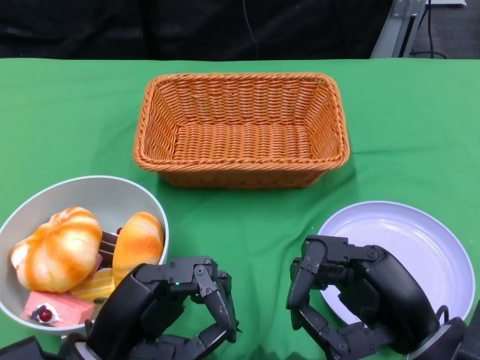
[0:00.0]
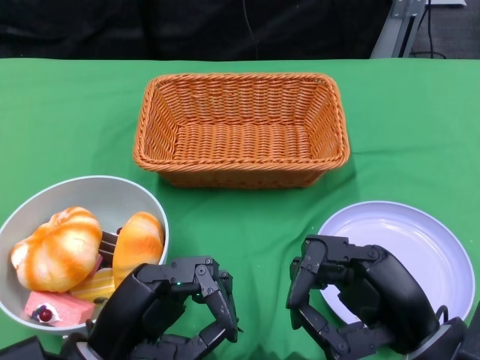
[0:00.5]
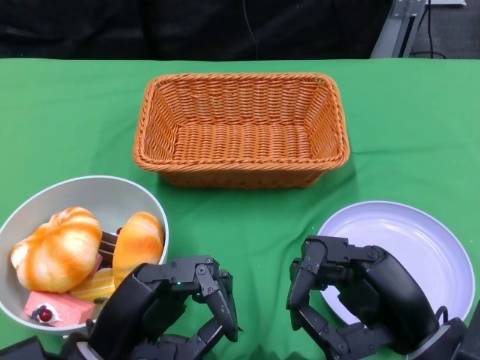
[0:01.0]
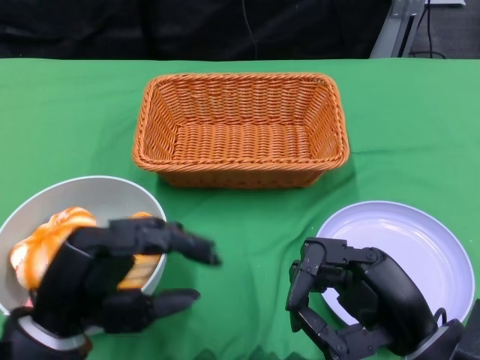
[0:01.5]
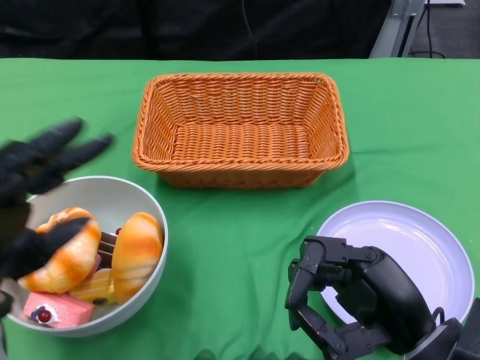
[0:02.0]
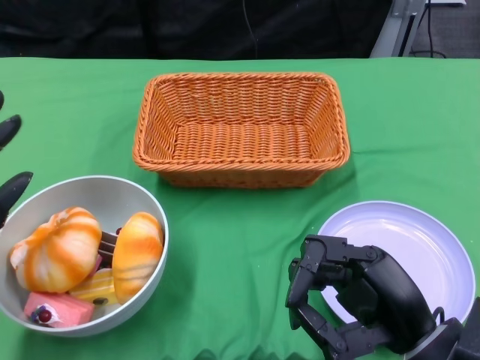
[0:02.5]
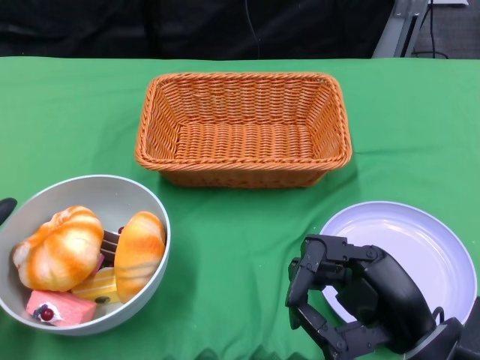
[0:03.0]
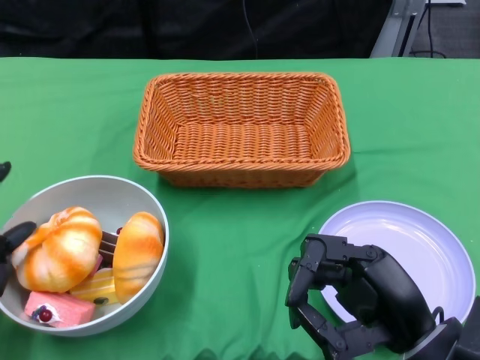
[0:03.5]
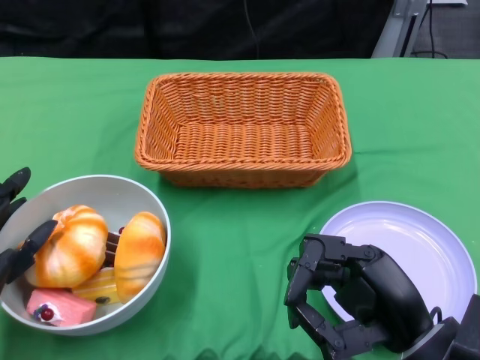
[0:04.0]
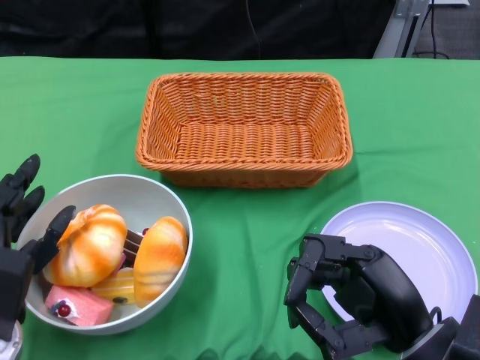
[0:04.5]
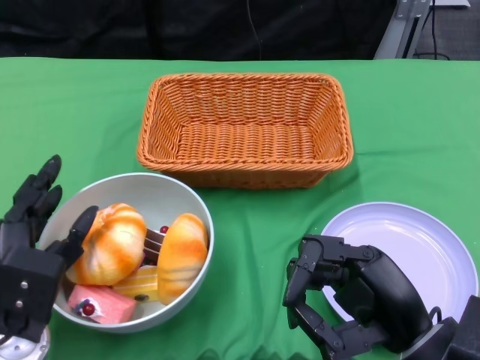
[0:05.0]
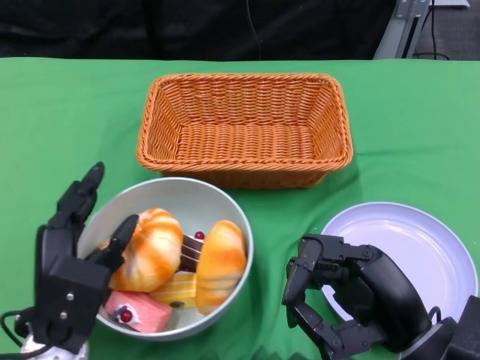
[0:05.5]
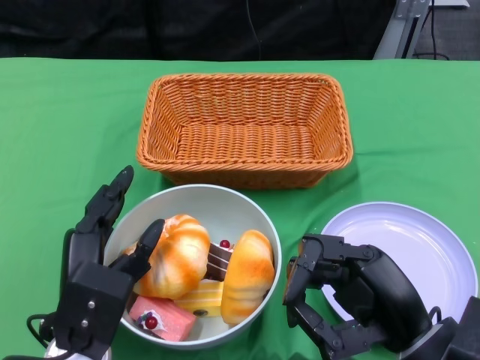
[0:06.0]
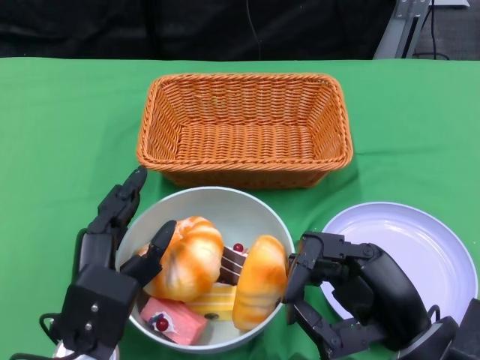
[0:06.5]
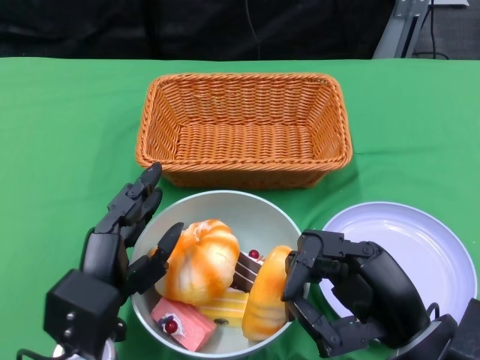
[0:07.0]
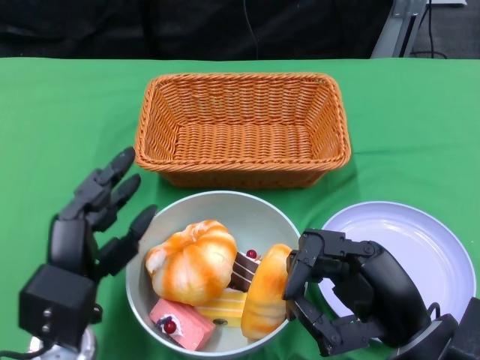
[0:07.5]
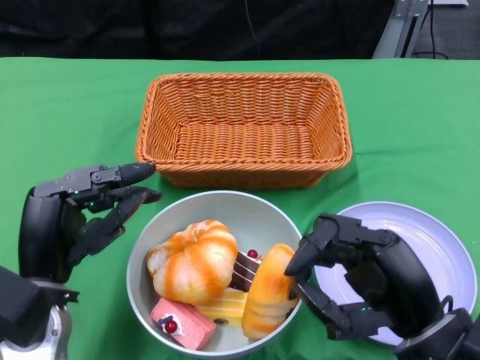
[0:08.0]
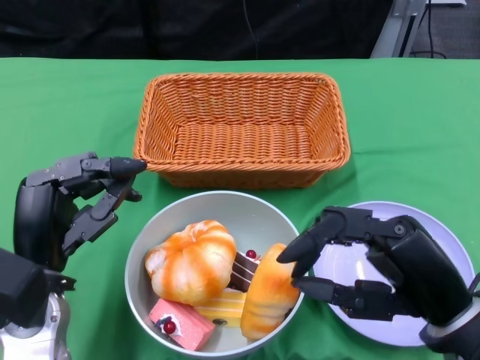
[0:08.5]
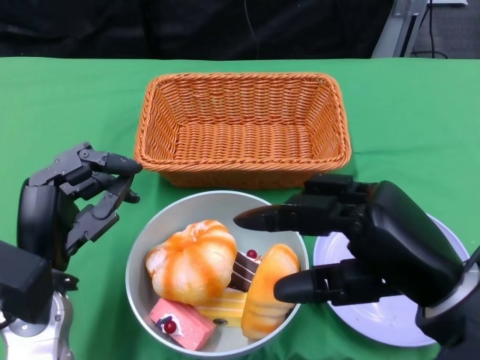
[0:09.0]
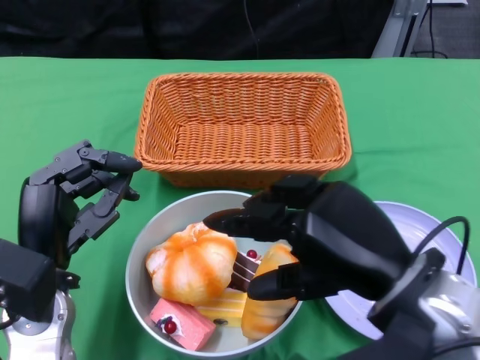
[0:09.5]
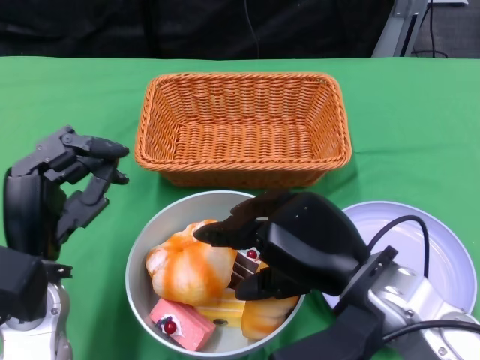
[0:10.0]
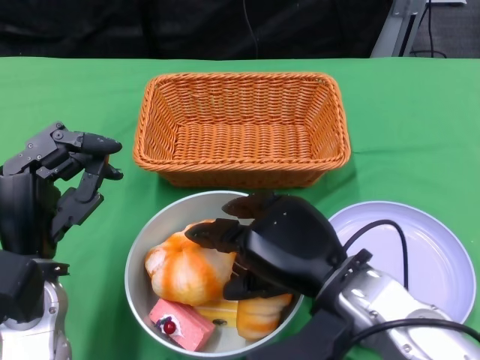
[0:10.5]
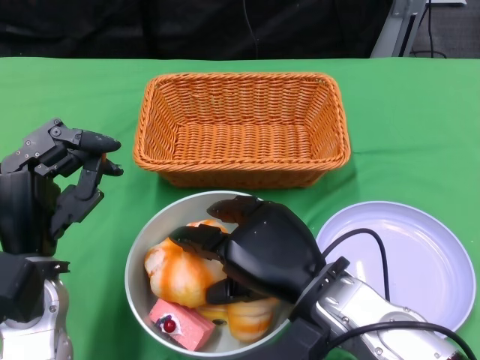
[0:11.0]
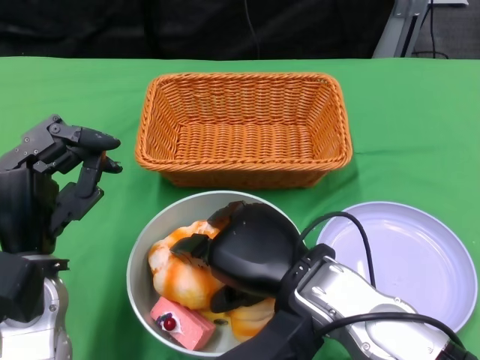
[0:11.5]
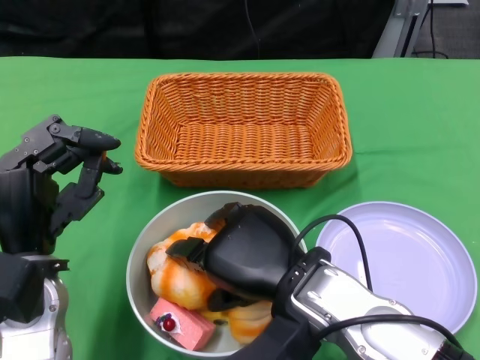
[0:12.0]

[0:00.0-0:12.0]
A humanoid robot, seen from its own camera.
Step, 0:00.0 to 0:07.0: Push the bowl to the center of the table using the left gripper.
0:02.0 to 0:04.0: The left hand shifts approximately 10 cm downward.
0:04.0 to 0:06.0: The left hand shifts approximately 10 cm to the right.
0:08.0 to 0:10.0: The right hand heads to the left, covering some 5 cm.
0:10.0 to 0:12.0: The right hand heads to the left, covering some 5 cm.

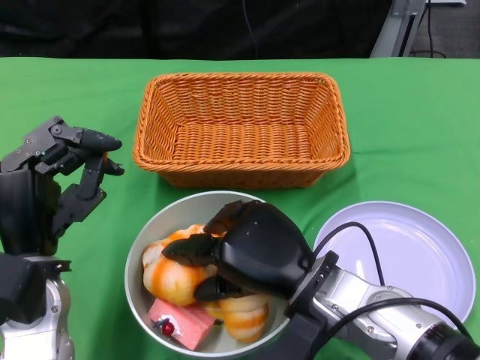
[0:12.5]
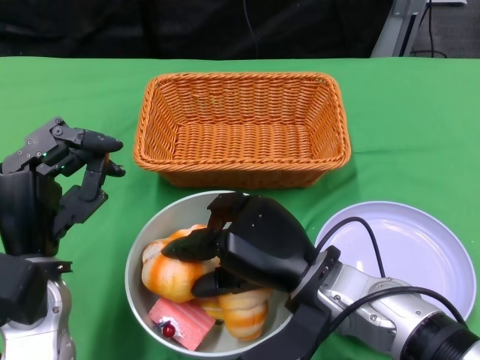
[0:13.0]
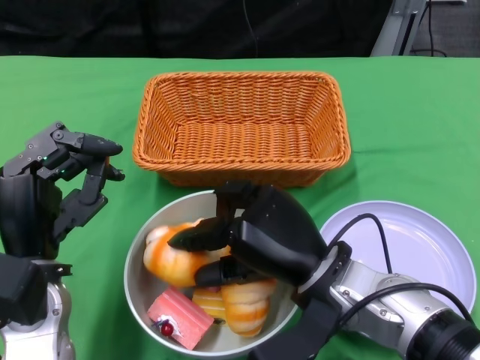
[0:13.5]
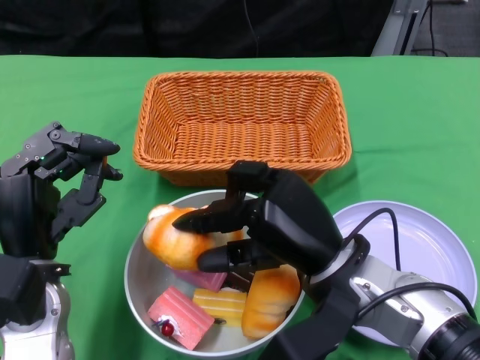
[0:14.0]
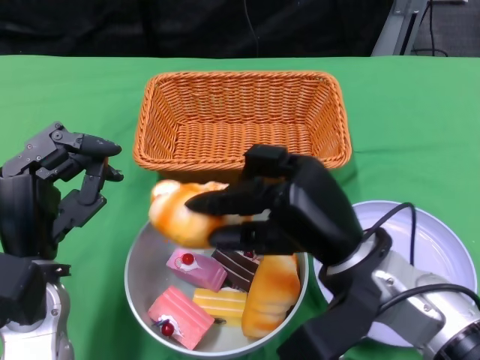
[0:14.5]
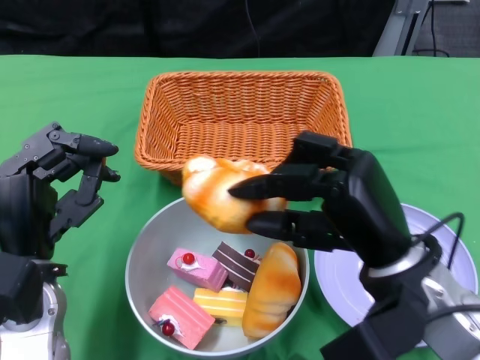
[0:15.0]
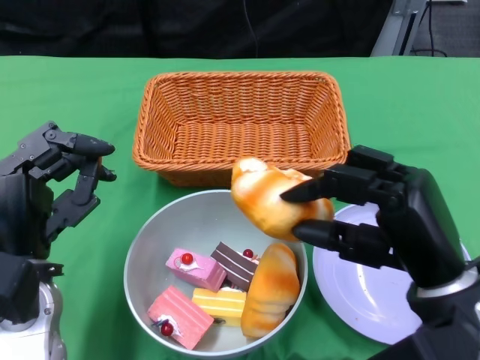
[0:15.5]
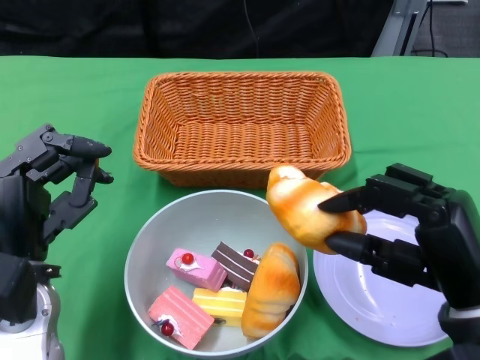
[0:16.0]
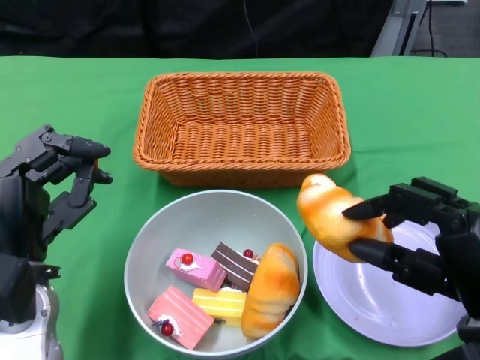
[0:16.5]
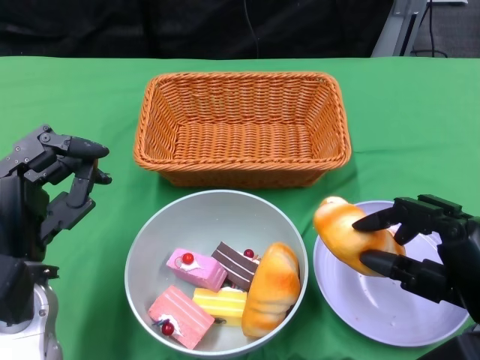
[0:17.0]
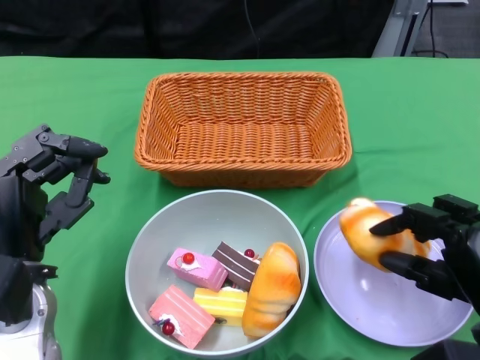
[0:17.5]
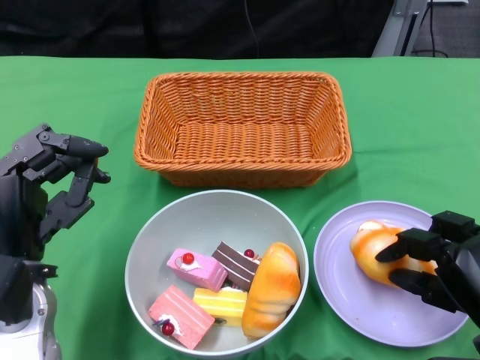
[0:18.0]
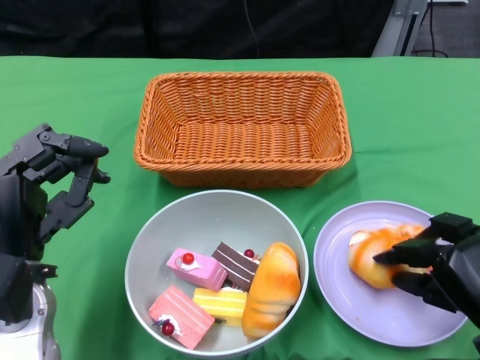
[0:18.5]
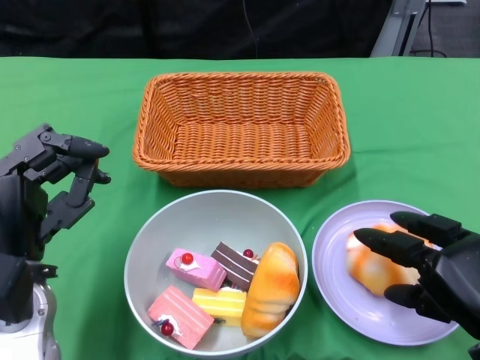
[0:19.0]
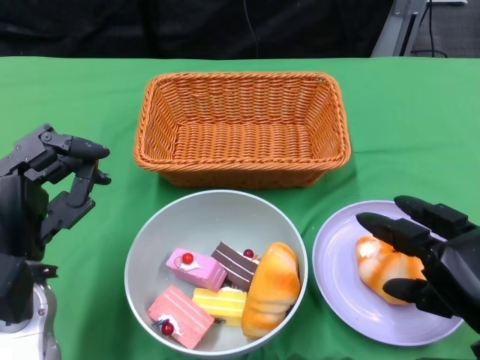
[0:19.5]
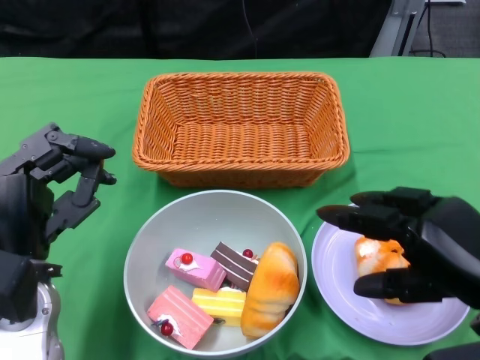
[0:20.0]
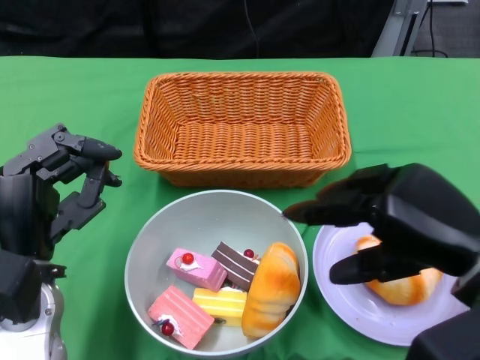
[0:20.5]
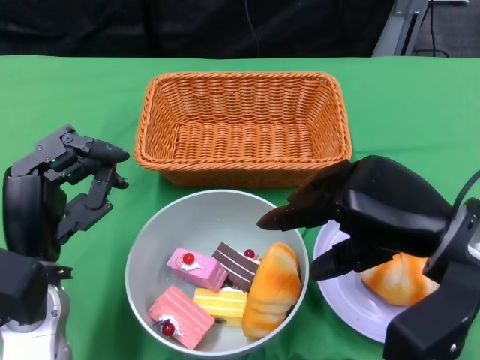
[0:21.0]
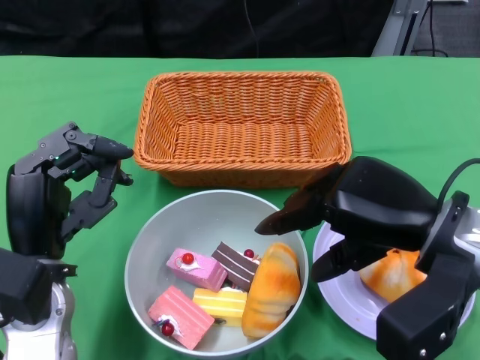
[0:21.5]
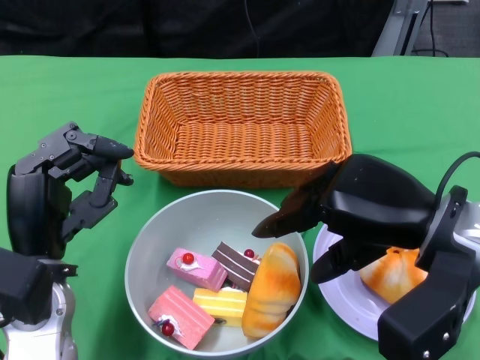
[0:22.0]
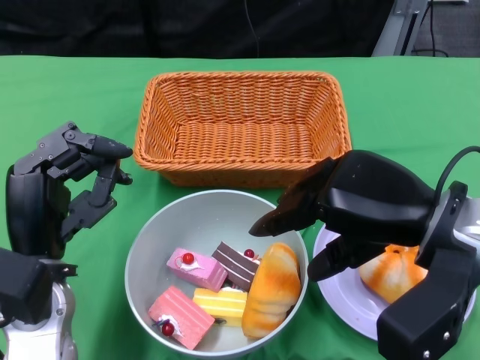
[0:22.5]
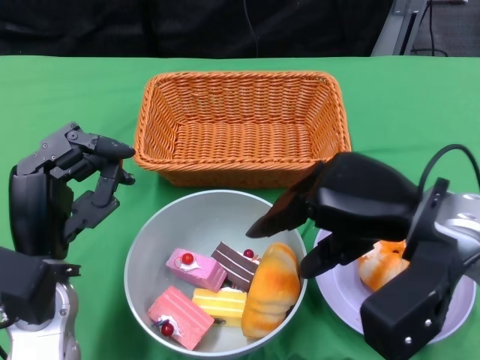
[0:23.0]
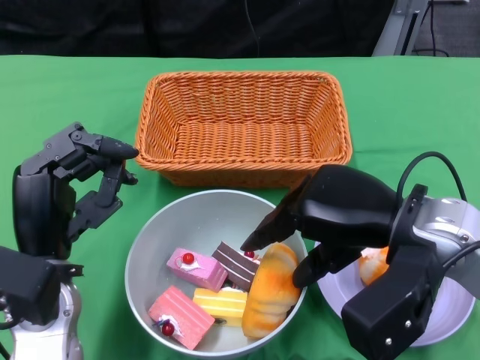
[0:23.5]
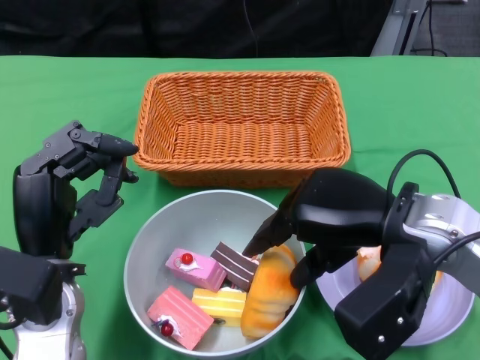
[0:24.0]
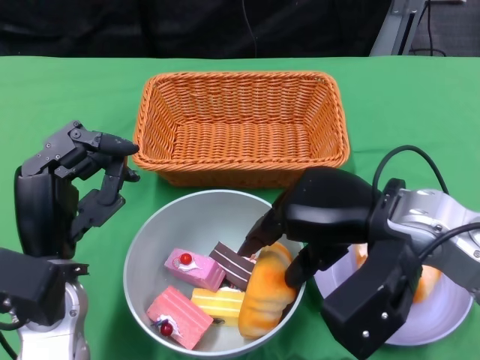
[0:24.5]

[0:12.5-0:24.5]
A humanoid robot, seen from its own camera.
0:14.5 to 0:16.5: The right hand shifts roughly 15 cm to the right and backward.
0:16.5 to 0:18.5: The right hand is displaced downward by roughly 5 cm.
0:18.5 to 0:20.5: The right hand travels upward by about 10 cm.

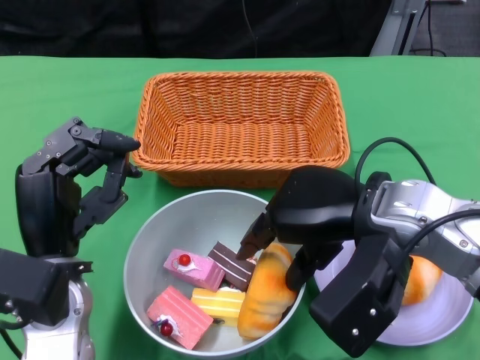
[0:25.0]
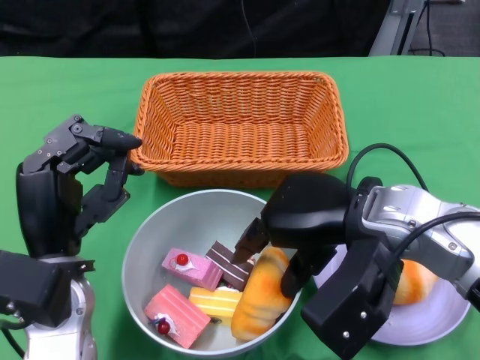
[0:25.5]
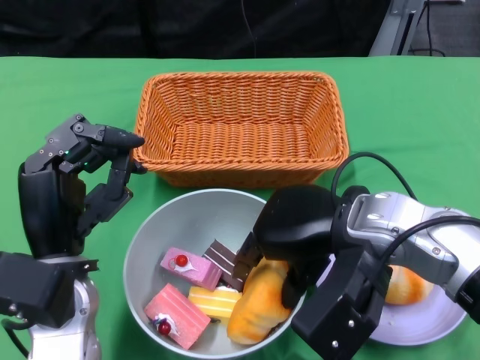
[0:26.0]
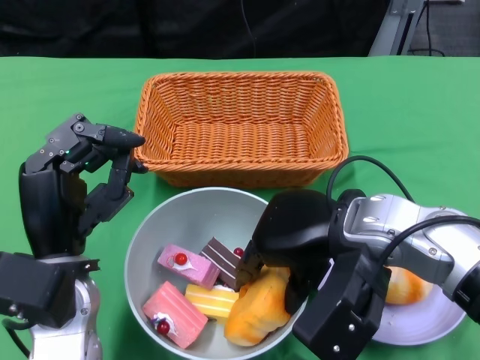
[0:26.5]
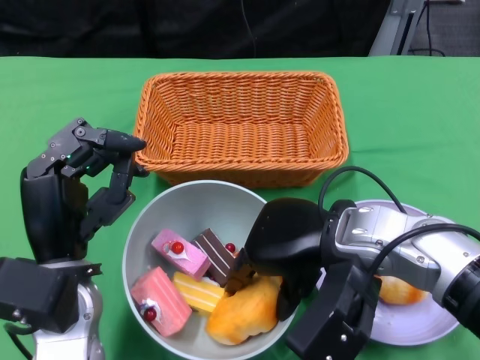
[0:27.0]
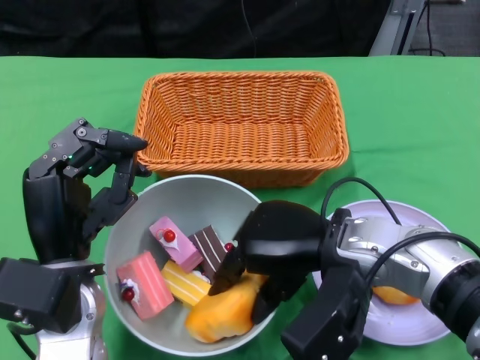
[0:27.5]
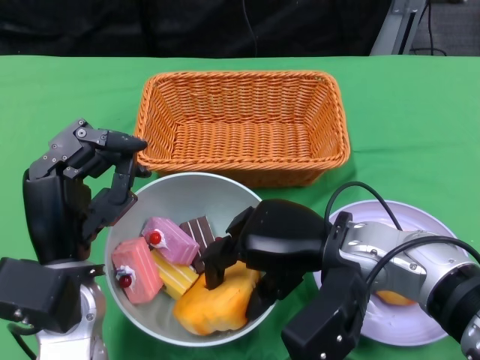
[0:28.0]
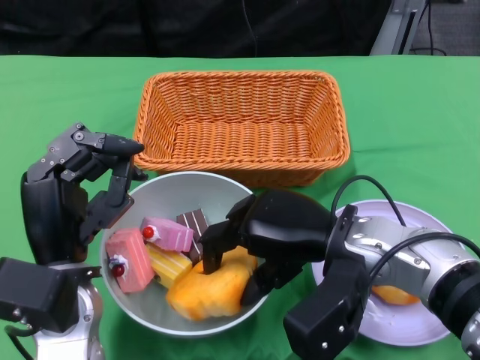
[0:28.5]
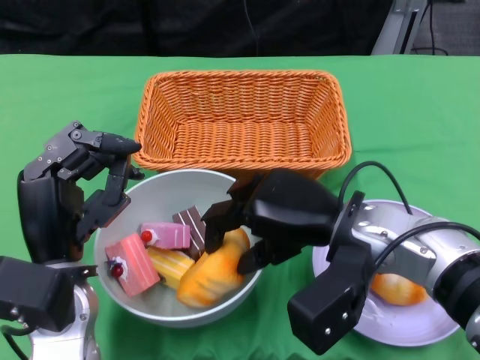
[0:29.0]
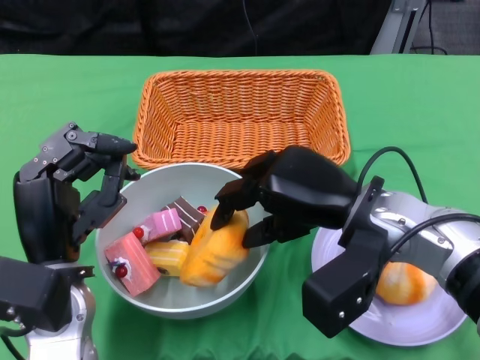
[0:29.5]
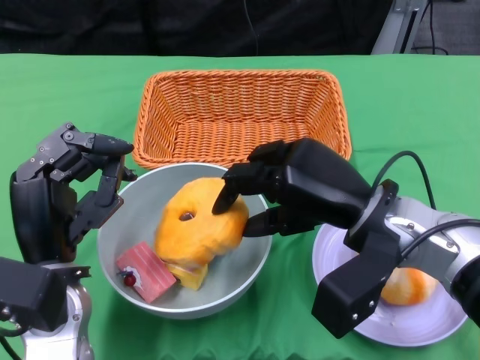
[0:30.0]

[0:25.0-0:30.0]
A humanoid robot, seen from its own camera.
0:25.0 to 0:27.5: The right hand changes place by about 5 cm.
